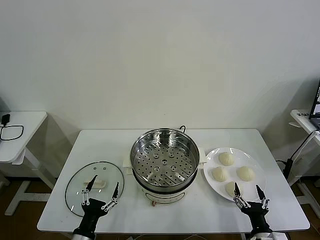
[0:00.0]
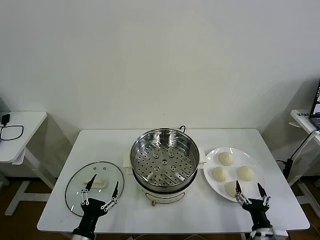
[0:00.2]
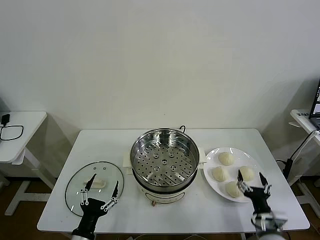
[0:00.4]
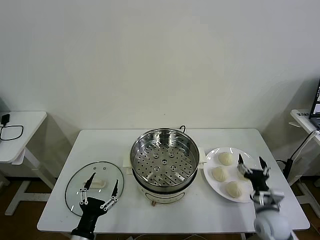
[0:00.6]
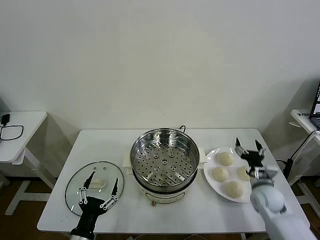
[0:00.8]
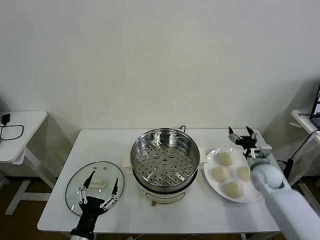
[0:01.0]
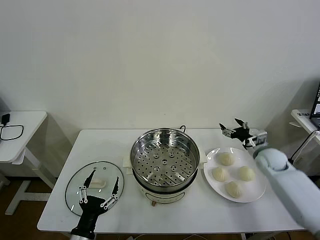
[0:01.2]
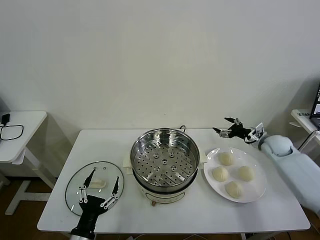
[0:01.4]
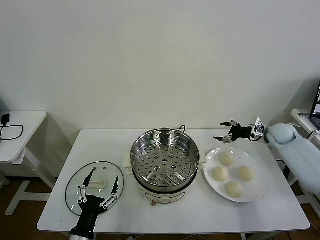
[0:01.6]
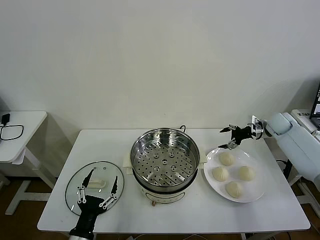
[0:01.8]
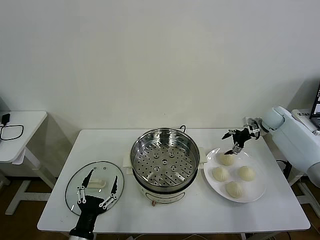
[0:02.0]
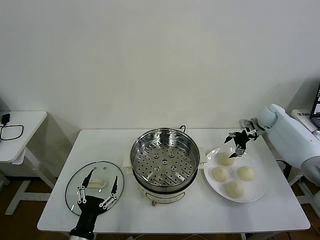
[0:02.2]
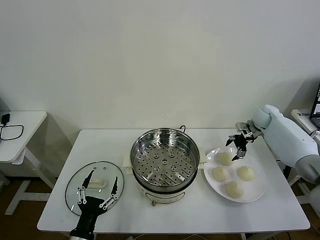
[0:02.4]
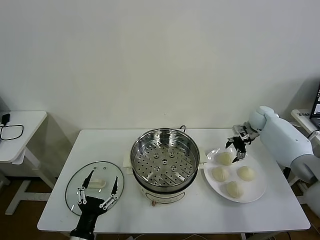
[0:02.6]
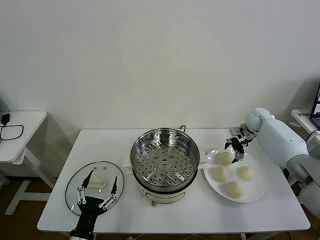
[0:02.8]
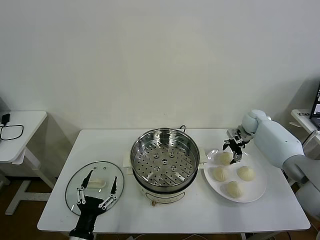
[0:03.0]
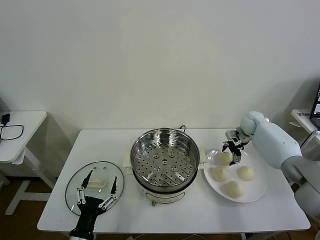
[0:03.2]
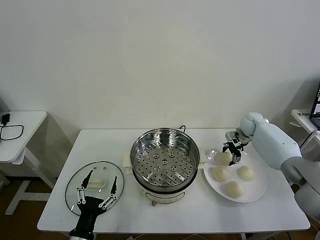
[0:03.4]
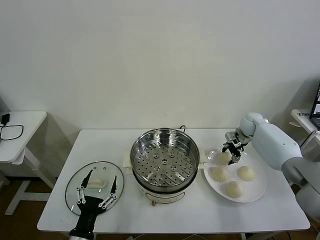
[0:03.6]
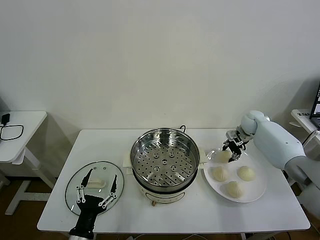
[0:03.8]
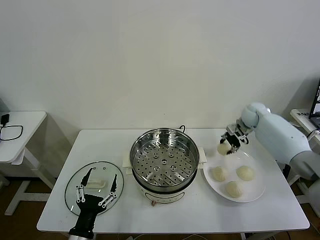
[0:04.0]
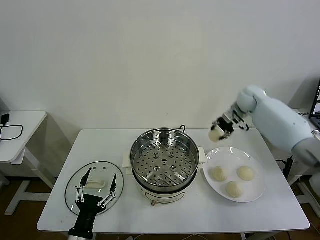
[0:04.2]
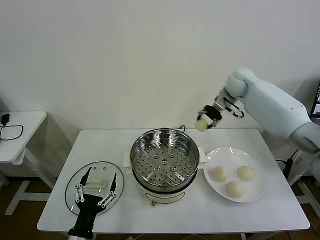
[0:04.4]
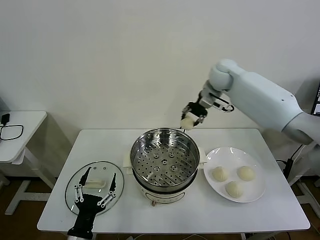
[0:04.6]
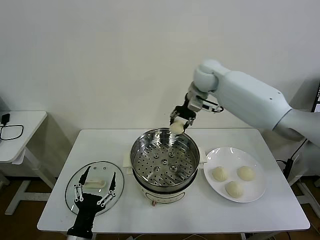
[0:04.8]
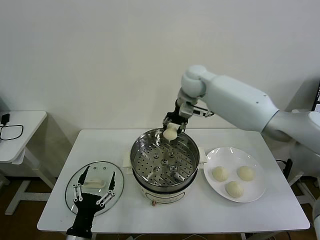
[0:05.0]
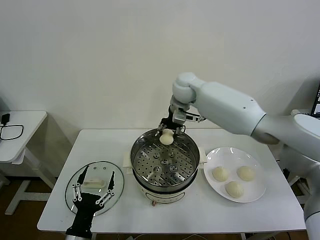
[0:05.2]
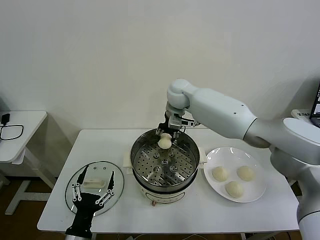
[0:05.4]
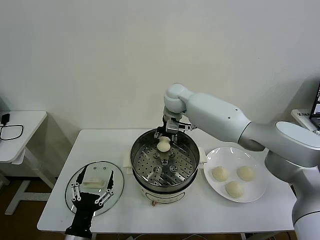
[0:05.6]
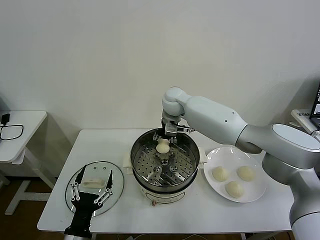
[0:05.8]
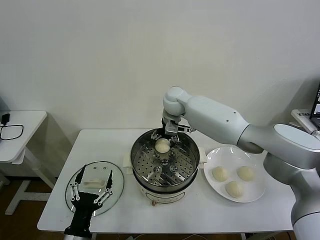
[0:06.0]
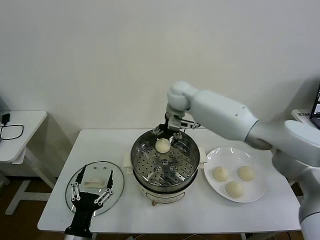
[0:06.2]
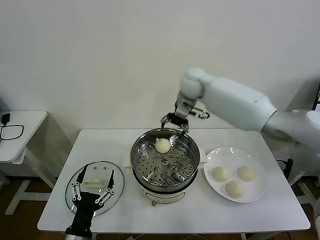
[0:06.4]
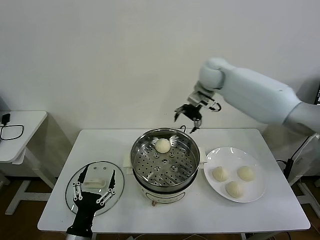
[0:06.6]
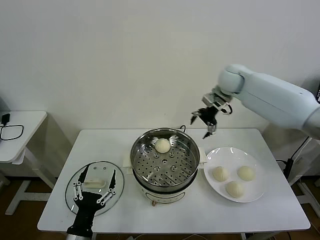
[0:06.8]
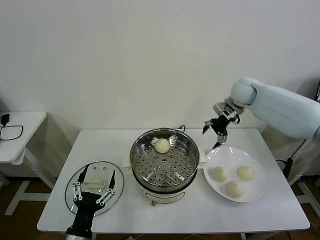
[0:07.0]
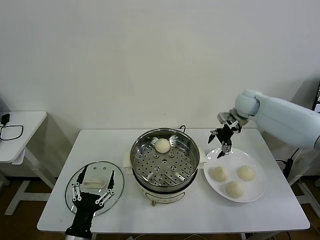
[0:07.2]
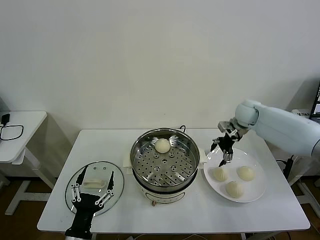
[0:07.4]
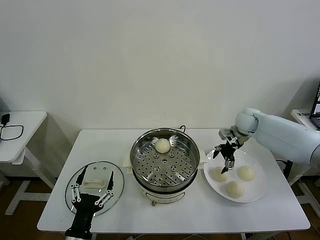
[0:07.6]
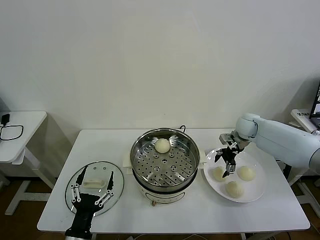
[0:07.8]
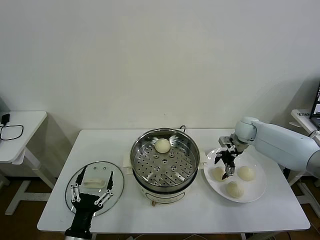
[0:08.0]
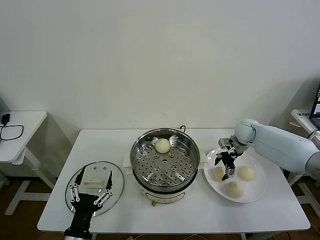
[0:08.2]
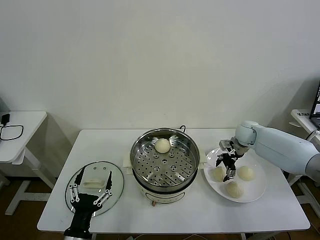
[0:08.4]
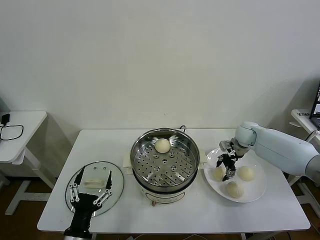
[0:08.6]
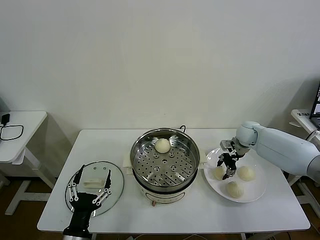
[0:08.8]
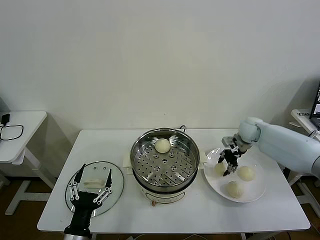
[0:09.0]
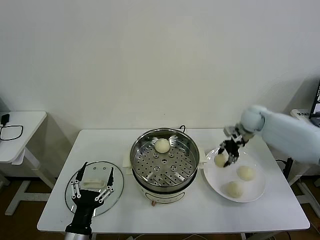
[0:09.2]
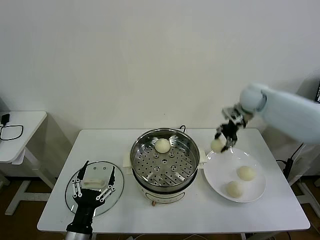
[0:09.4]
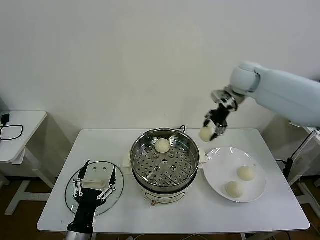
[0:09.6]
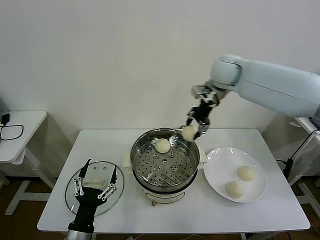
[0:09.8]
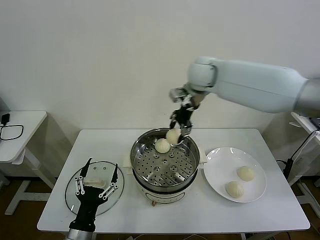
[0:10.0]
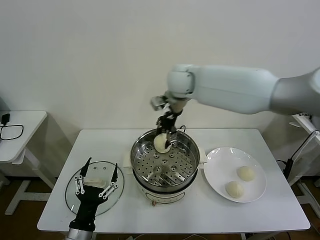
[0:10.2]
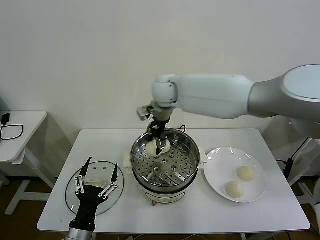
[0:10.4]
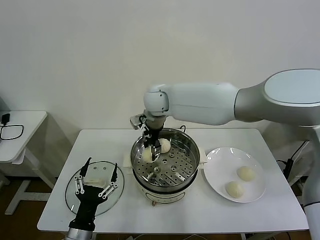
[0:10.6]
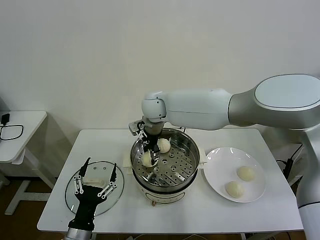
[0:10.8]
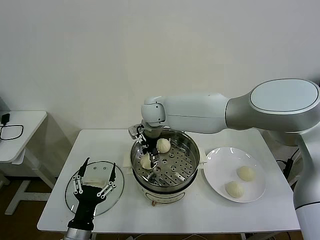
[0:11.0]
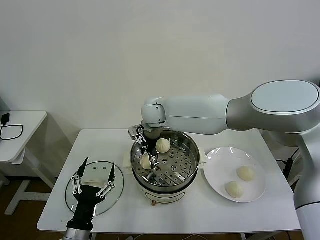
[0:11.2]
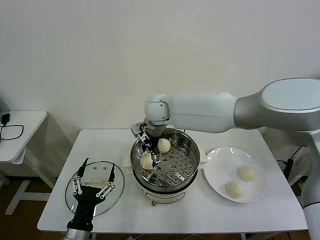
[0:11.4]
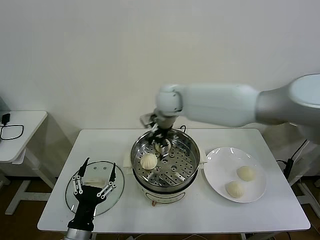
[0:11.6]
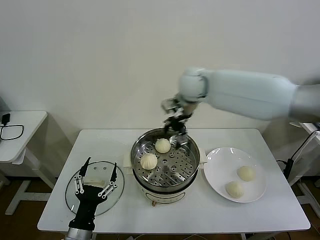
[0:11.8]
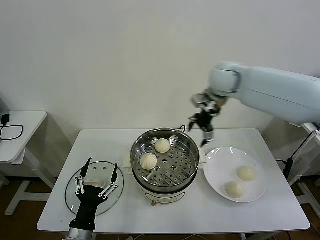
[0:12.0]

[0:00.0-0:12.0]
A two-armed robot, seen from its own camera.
Task of the whole recording: take steamed baozi put them in steamer then cover it.
Step, 0.0 to 3.6 s: Grasp the baozi in the plate with right gripper.
Step, 3.8 to 6.0 s: Place the baozi on the steamer with right gripper.
Step, 6.2 to 8.8 s: Grasp the baozi in the plate with right gripper.
Step, 9.0 to 11.2 s: Place the baozi on the steamer with right gripper.
1.6 to 3.0 s: The right gripper heads forward and to the left, covering approximately 10 cm.
3.0 to 4.4 s: The right gripper travels upward and to the left by approximately 20 cm, and closes.
4.4 to 6.0 s: The right gripper shifts some 20 cm to the left, and opens up.
6.0 to 7.6 s: The right gripper shifts roughly 30 cm to the right.
7.6 to 9.0 s: The right gripper closes.
9.0 to 10.4 s: The right gripper travels to the left and upward by roughly 40 cm.
10.4 to 12.0 s: The right gripper shifts some 20 cm to the right, and opens its fingers.

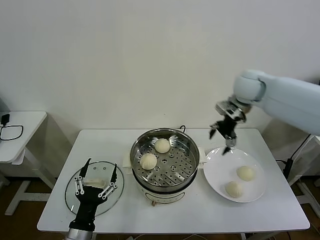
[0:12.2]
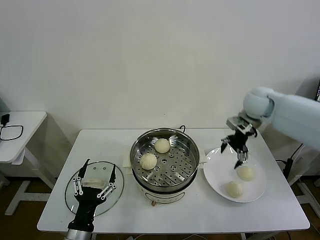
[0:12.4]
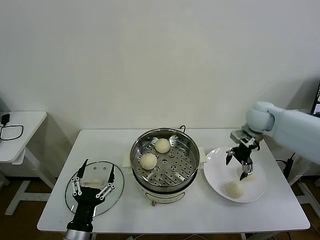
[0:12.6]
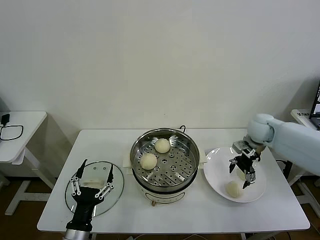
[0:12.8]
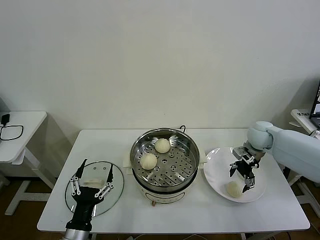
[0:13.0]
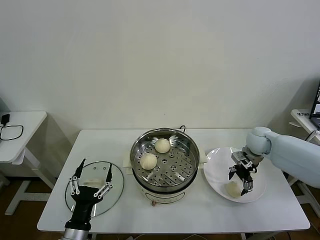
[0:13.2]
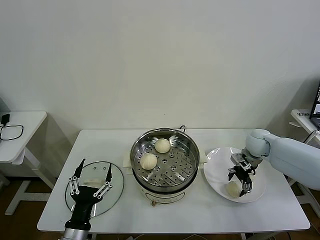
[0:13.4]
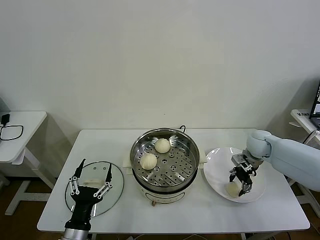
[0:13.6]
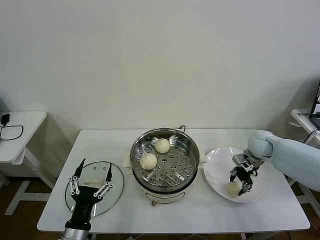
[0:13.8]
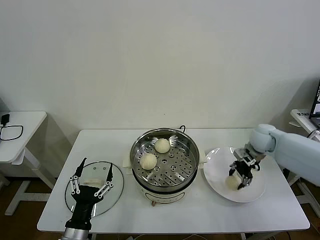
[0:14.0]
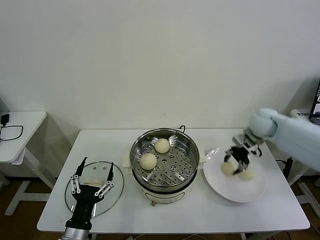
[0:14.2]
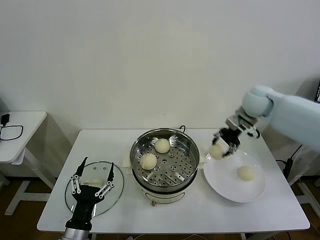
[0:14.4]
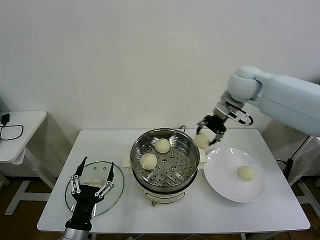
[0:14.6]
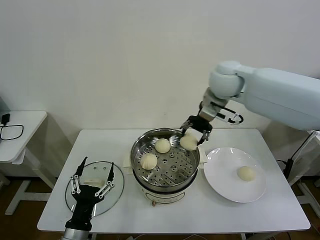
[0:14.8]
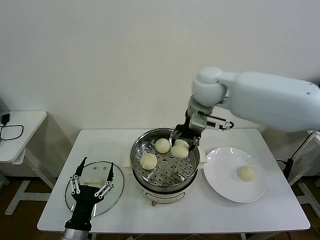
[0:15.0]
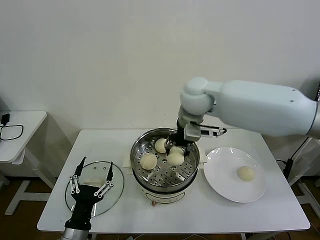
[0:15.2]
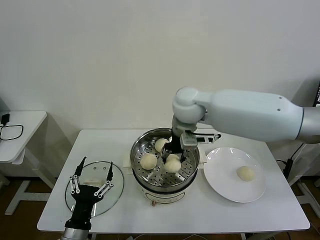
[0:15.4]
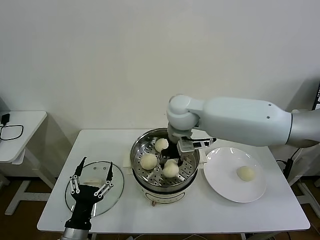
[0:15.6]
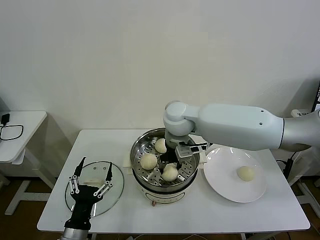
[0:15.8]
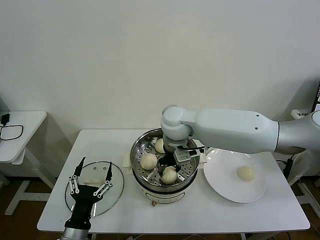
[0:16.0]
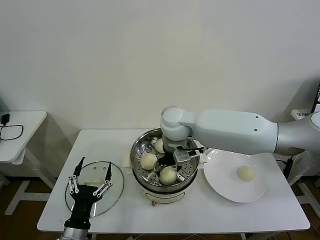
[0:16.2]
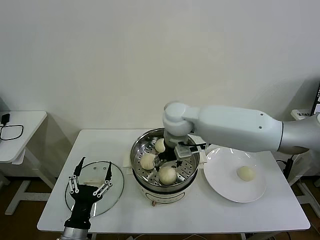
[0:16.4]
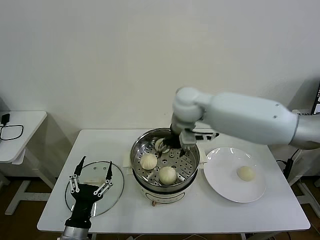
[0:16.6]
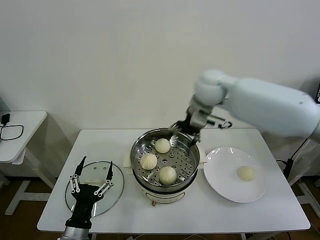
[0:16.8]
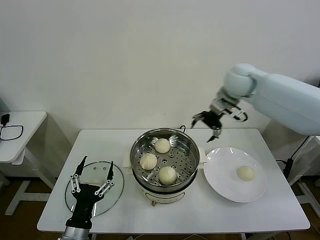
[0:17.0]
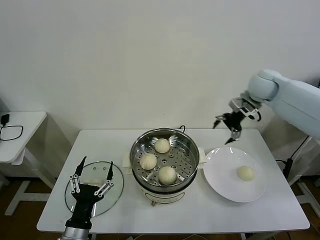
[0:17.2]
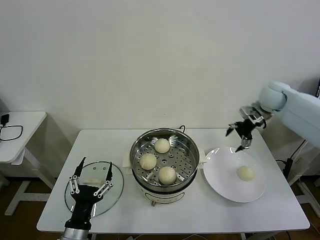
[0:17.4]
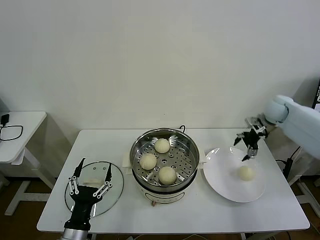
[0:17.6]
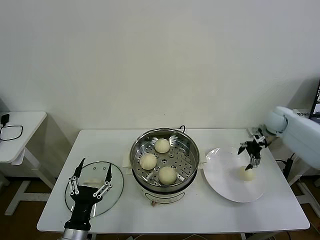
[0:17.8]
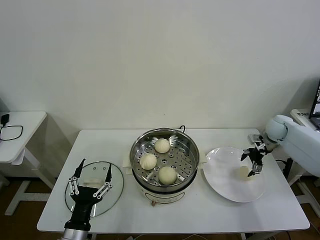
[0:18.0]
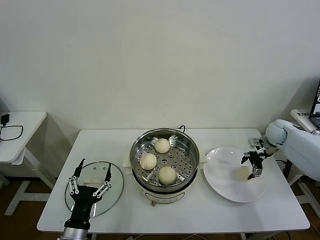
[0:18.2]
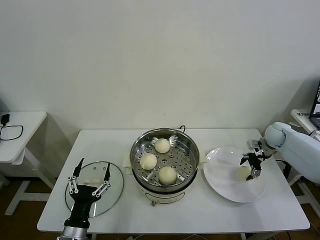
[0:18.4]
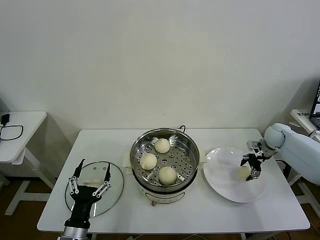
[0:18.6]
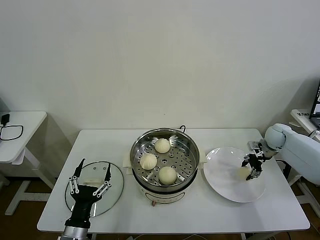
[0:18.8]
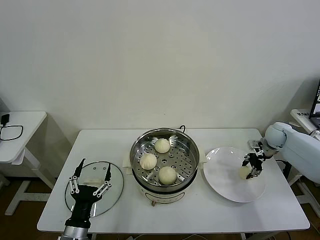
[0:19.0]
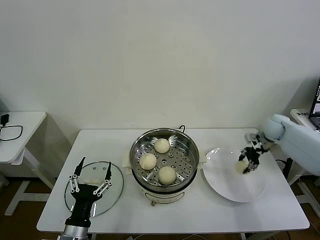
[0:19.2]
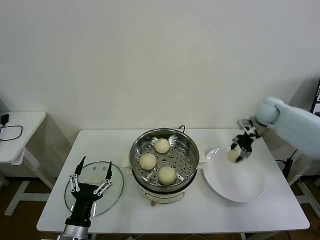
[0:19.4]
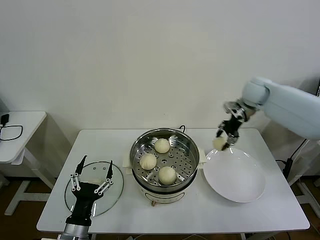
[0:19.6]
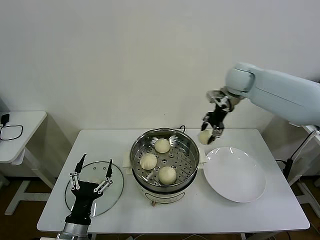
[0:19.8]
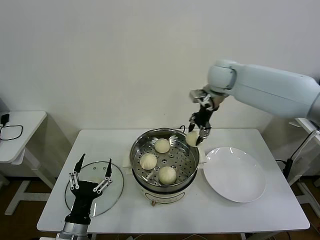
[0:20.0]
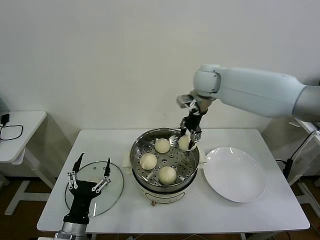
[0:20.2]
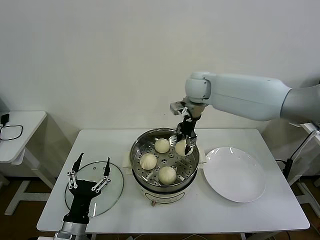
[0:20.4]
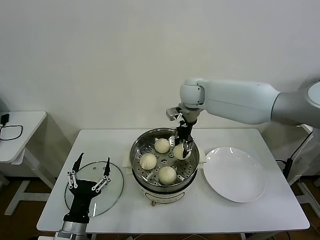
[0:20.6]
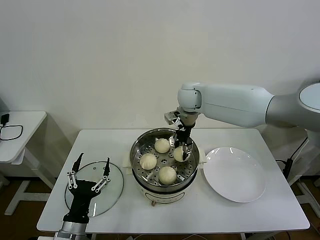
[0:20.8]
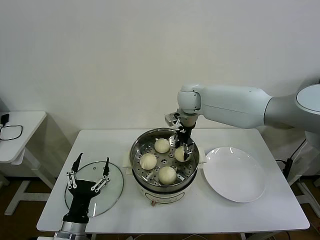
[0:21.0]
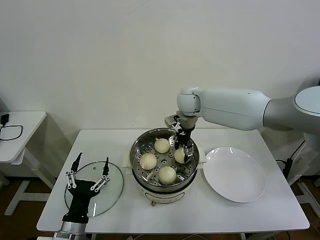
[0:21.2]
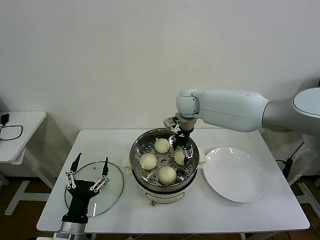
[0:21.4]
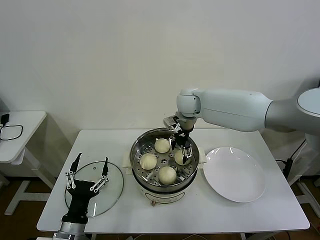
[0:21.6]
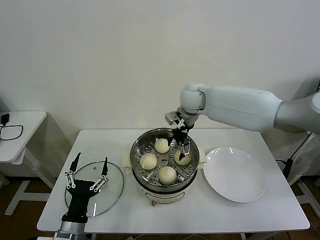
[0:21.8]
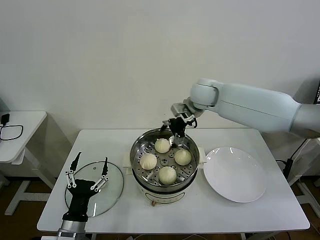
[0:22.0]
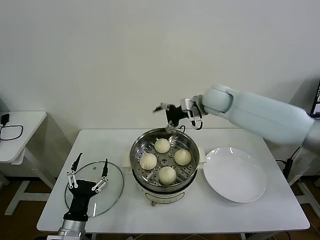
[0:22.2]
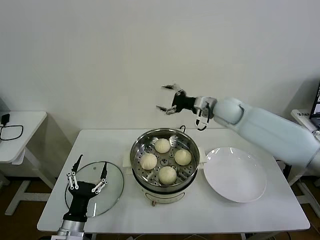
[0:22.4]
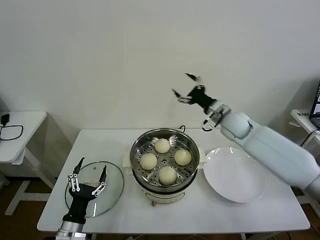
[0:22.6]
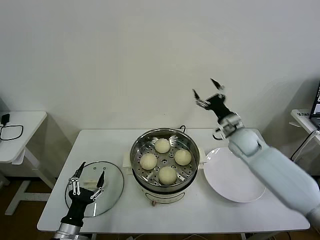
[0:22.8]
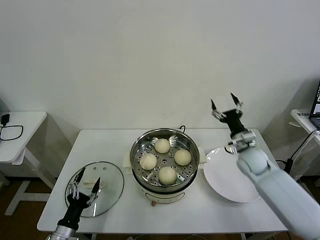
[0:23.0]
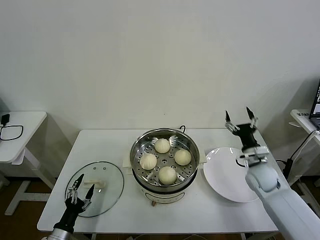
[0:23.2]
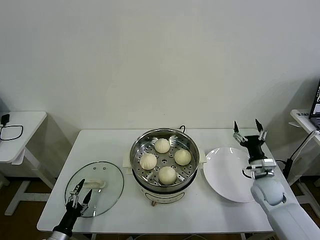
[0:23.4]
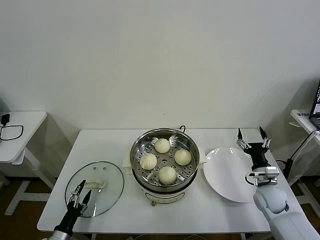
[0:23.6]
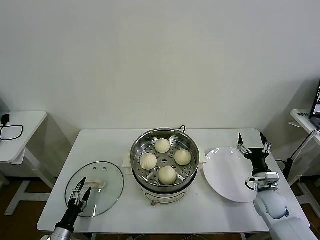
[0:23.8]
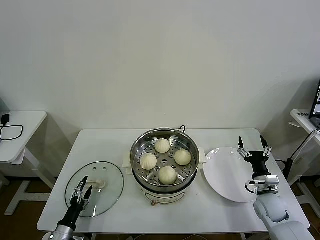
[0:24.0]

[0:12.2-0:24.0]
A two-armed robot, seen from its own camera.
Task of the whole recording: take steamed baozi put them in steamer then cover it.
Step, 12.2 to 13.6 s: Grasp the baozi in the plate with right gripper.
Step, 14.0 to 16.4 s: Place the baozi on the steamer with right gripper.
Step, 16.6 to 18.6 s: Grasp the baozi in the plate with right gripper.
Step, 19.0 to 21.8 s: Place the baozi on the steamer with right gripper.
12.2 to 13.6 s: The right gripper is displaced downward and to the right by some 25 cm, and closes.
13.6 to 15.2 s: The right gripper is displaced to the left and upward by roughly 35 cm.
15.2 to 16.6 s: The right gripper opens its fingers.
16.6 to 18.2 s: The right gripper goes some 40 cm to the right and downward.
18.2 to 19.6 s: The right gripper travels upward and to the left by some 20 cm, and closes up.
19.6 to 21.0 s: The right gripper moves to the left, approximately 25 cm.
21.0 to 22.6 s: The left gripper moves roughly 5 cm. The right gripper shifts some 15 cm to the right and downward, and opens.
22.6 to 24.0 s: The left gripper shifts about 15 cm downward and to the left, while the right gripper goes about 30 cm downward, backward and to the right.
